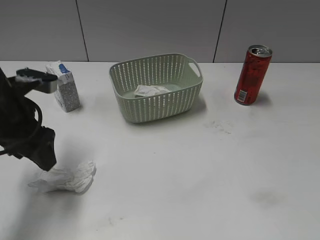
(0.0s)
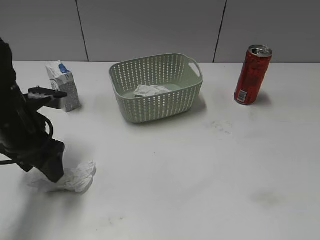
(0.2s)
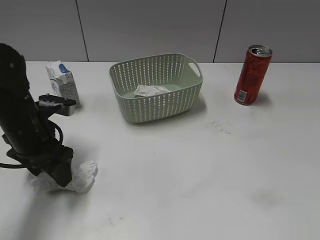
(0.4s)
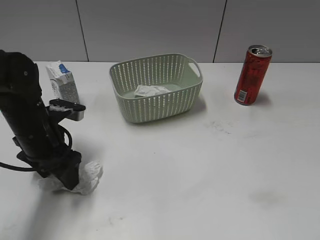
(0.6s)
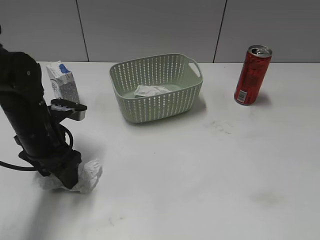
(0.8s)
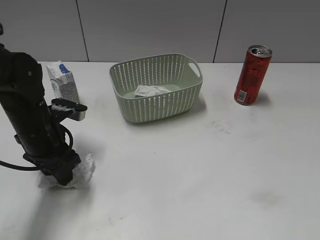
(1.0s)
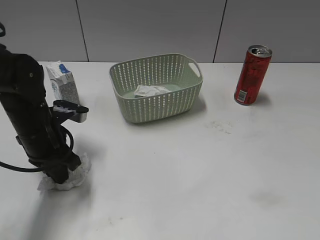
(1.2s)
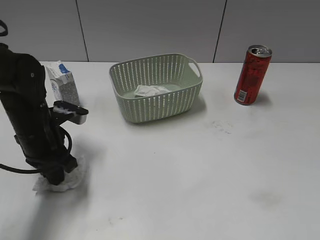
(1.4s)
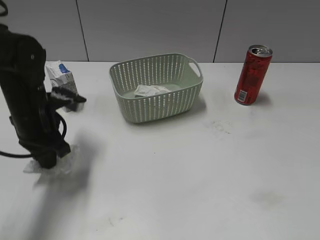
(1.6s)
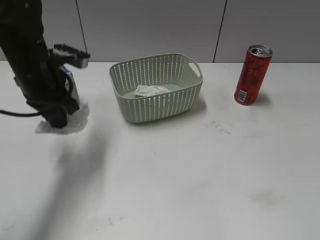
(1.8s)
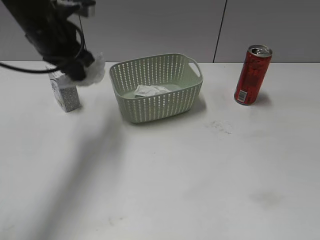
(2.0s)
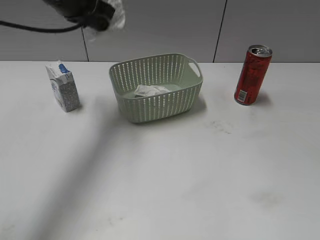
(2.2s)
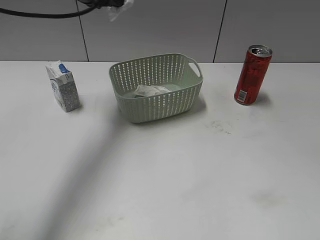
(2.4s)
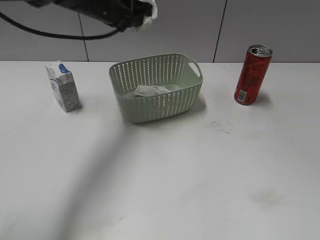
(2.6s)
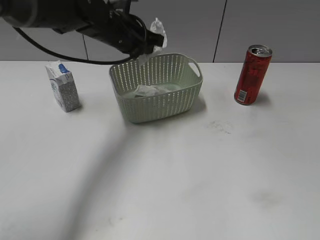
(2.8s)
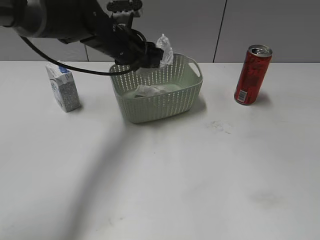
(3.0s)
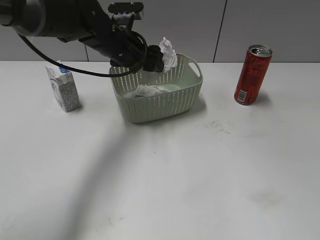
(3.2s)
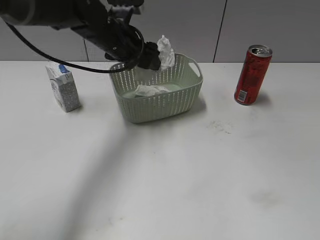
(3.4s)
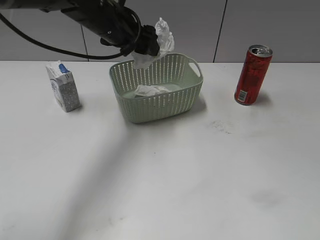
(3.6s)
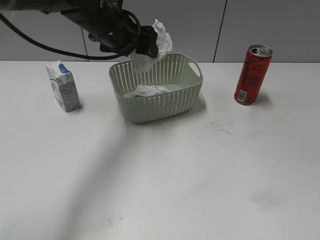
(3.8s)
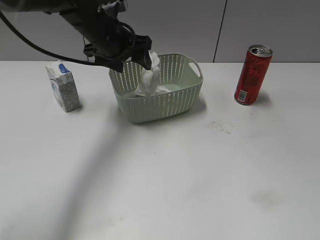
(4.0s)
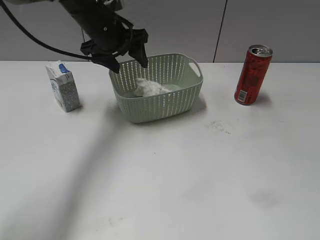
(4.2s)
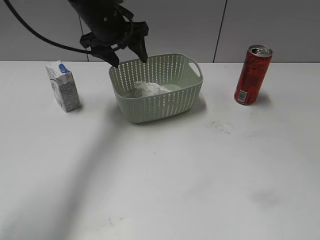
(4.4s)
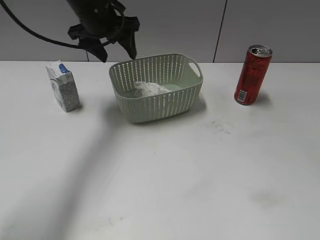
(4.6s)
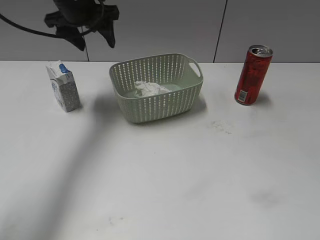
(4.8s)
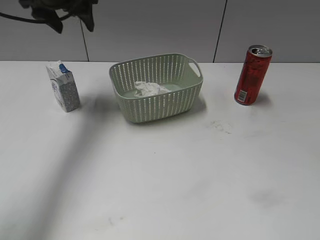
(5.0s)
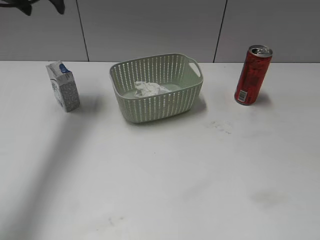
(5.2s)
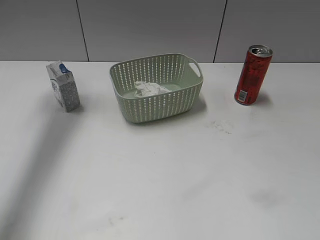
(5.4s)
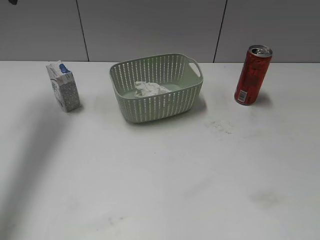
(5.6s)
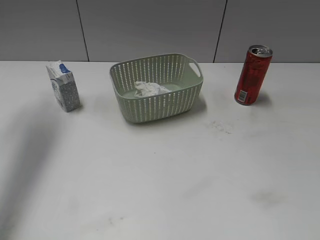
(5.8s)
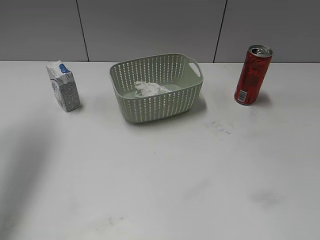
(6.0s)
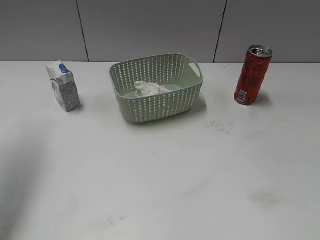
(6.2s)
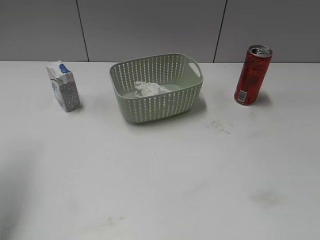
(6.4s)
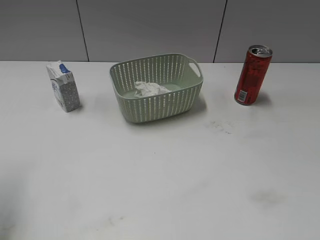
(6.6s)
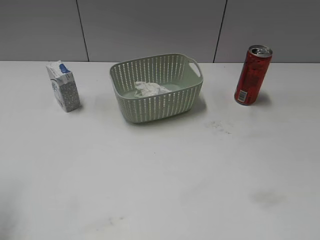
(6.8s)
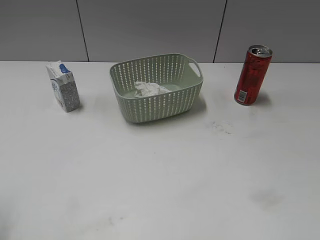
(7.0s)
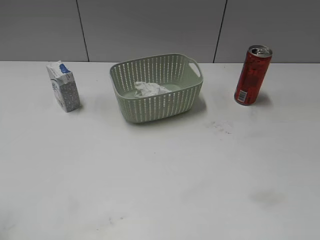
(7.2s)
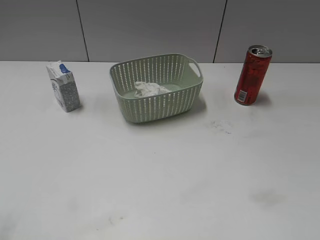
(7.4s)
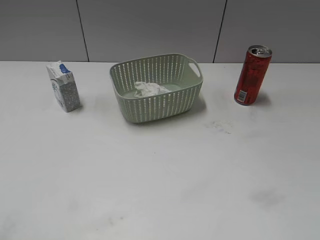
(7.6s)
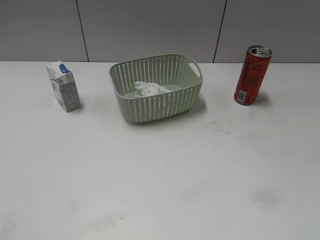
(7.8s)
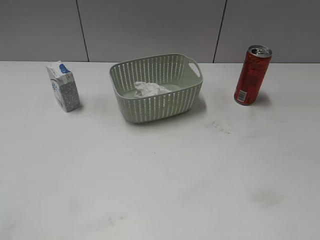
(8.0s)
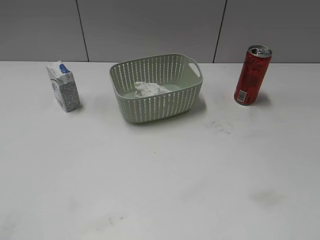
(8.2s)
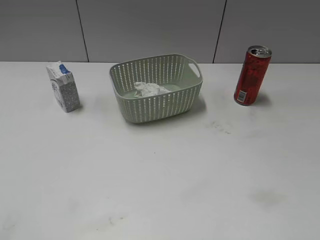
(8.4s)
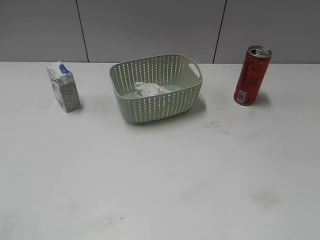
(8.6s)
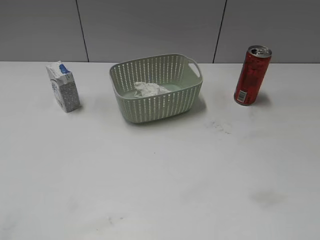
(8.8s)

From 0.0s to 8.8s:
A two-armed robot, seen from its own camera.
Step, from 1.6s to 4.4s: Place the waste paper in the basket with left gripper.
From 0.0s to 1.4s: The left gripper is displaced downward by about 10 cm, and closes its fingers.
From 1.4s to 3.0s: The left gripper travels forward, to the right and upward by about 20 cm, and opens up.
From 3.0s to 4.4s: The left gripper shifts by roughly 5 cm, and opens its fingers.
From 4.4s to 5.8s: The left gripper shifts some 25 cm to the left and upward.
From 5.8s to 7.4s: The left gripper shifts about 30 cm backward.
